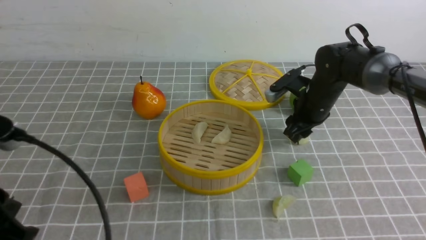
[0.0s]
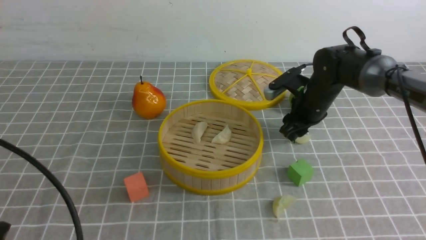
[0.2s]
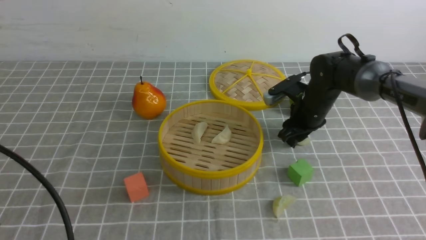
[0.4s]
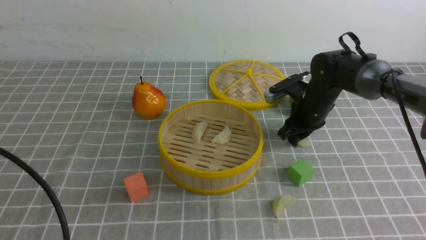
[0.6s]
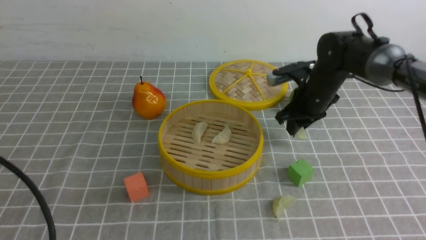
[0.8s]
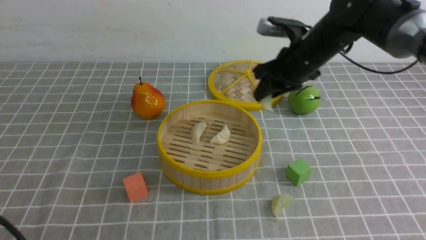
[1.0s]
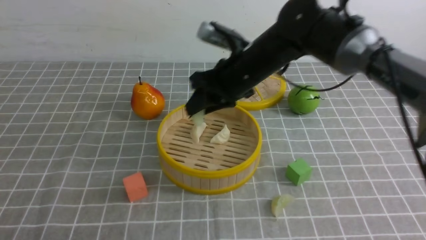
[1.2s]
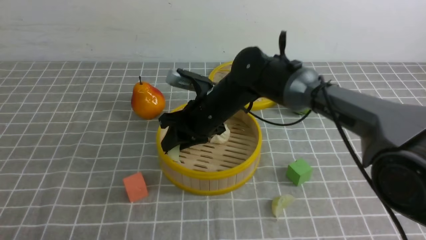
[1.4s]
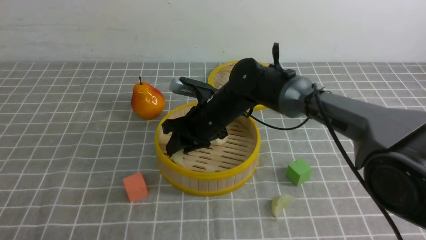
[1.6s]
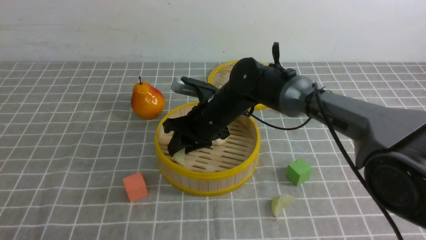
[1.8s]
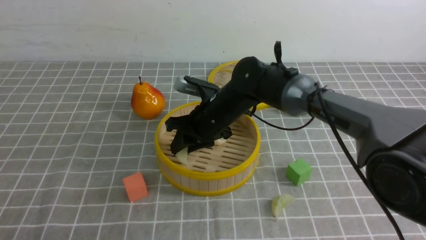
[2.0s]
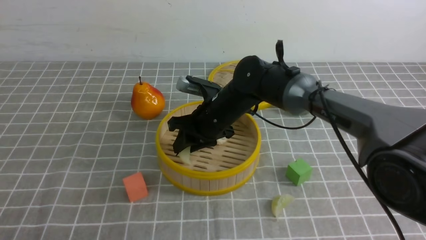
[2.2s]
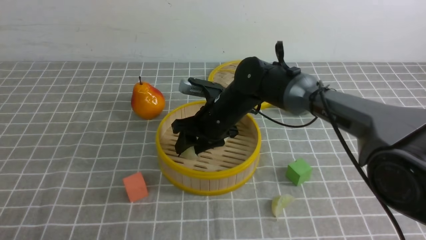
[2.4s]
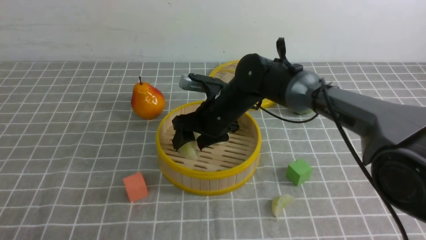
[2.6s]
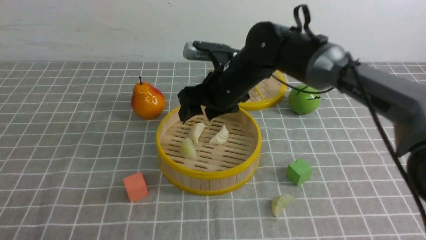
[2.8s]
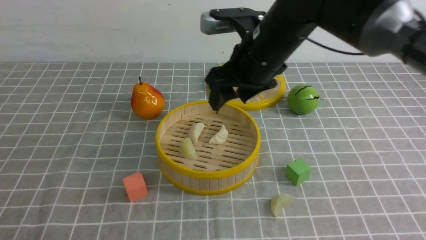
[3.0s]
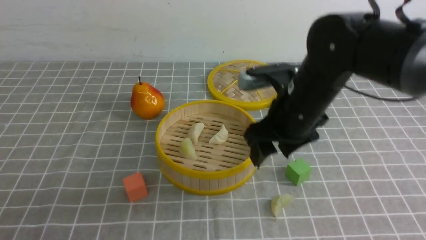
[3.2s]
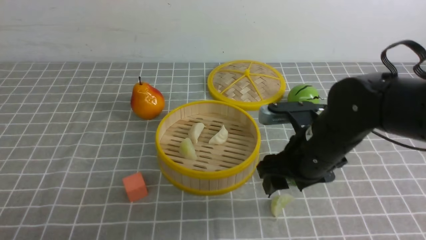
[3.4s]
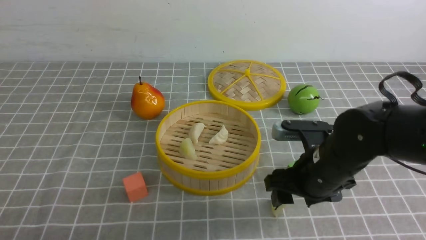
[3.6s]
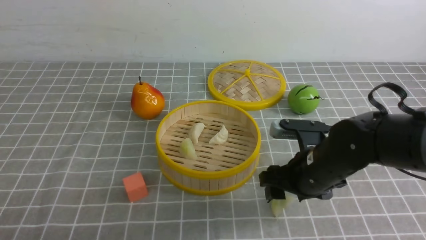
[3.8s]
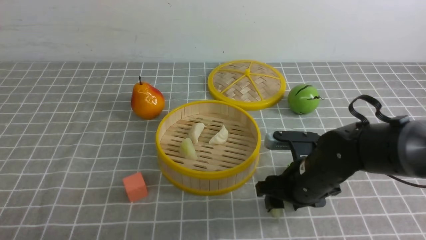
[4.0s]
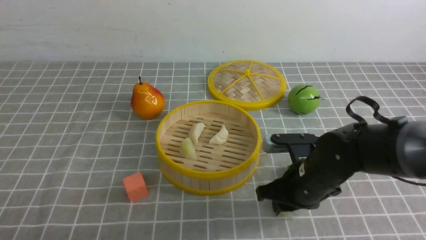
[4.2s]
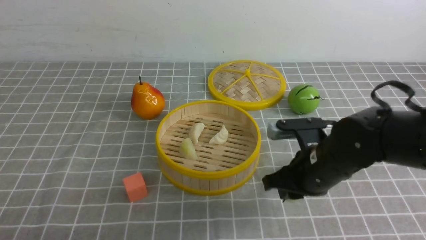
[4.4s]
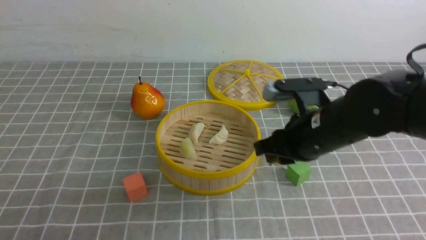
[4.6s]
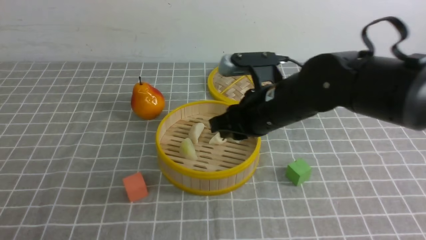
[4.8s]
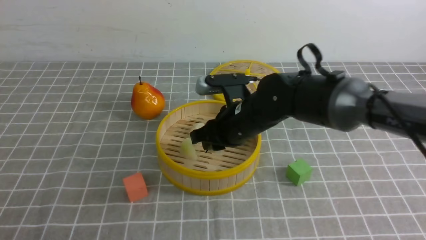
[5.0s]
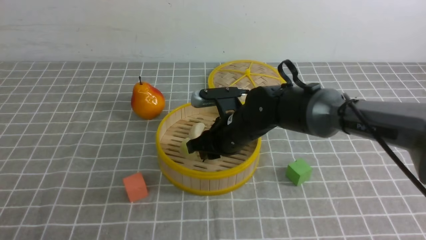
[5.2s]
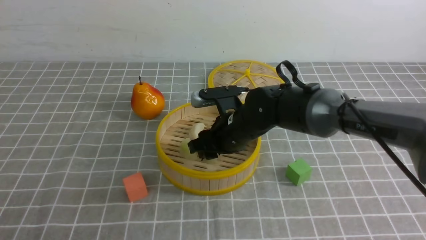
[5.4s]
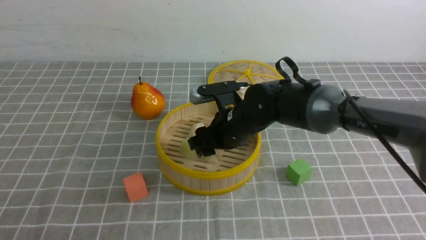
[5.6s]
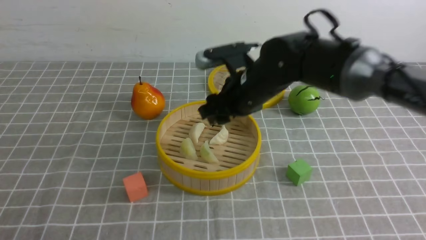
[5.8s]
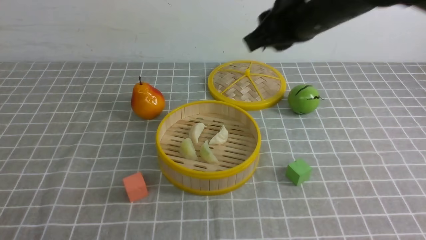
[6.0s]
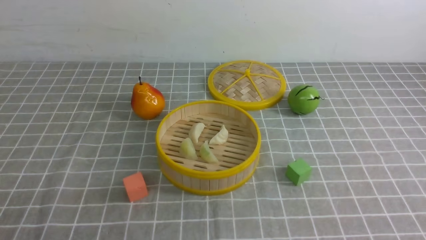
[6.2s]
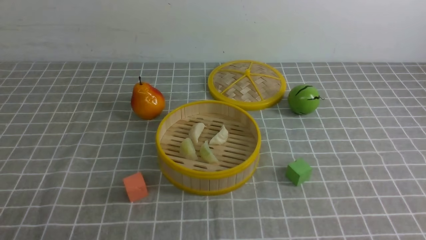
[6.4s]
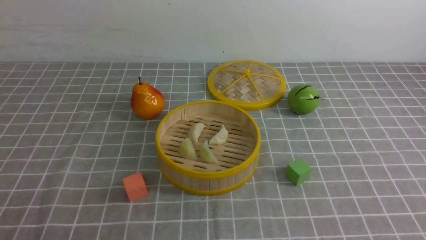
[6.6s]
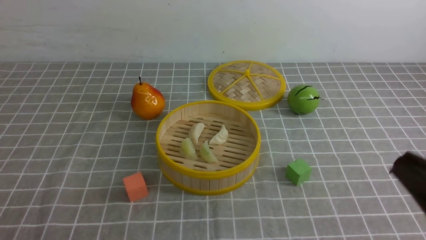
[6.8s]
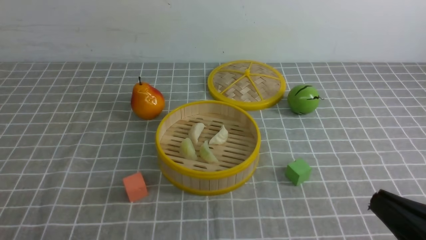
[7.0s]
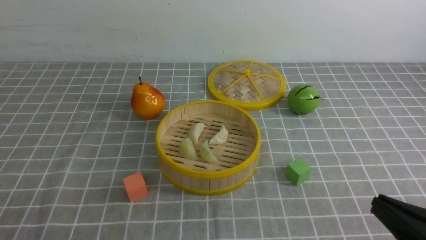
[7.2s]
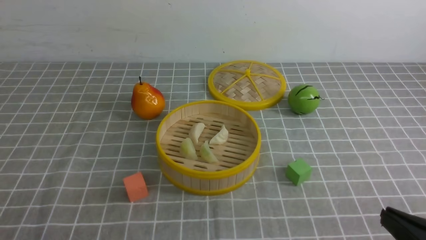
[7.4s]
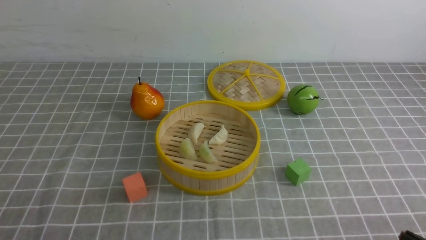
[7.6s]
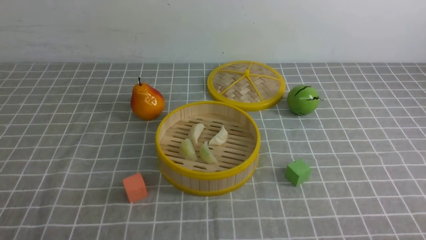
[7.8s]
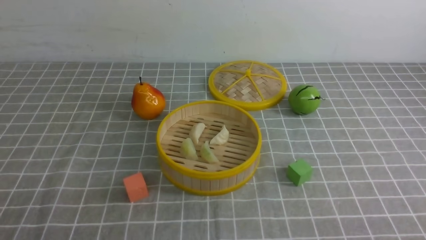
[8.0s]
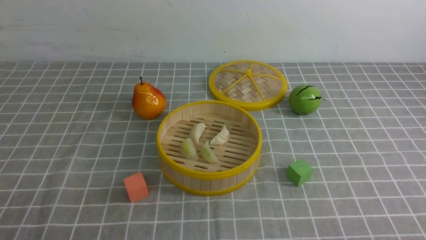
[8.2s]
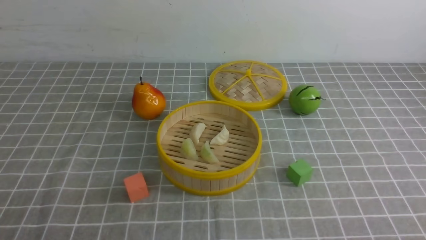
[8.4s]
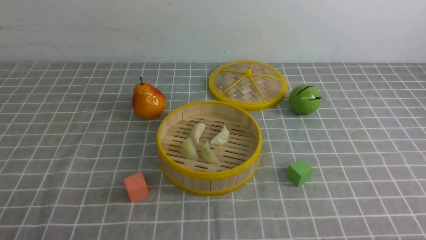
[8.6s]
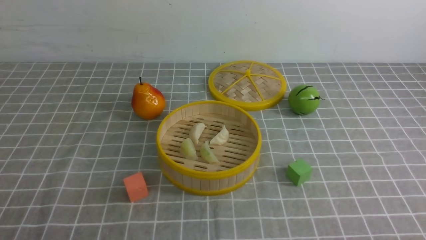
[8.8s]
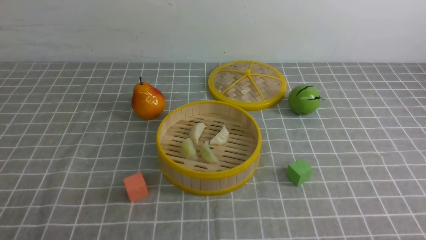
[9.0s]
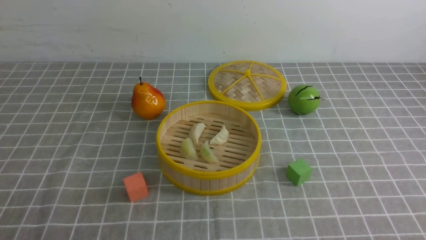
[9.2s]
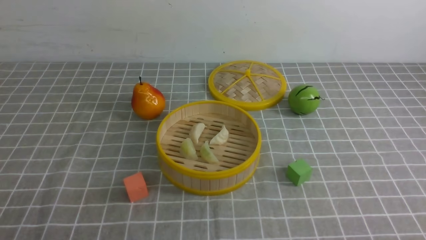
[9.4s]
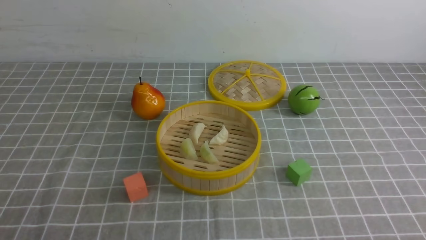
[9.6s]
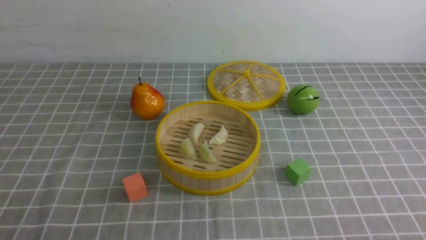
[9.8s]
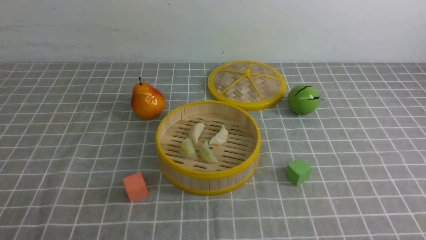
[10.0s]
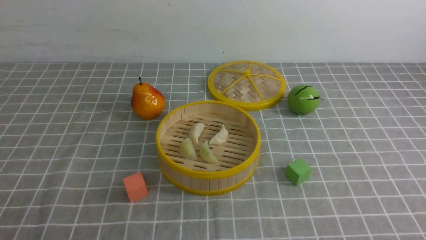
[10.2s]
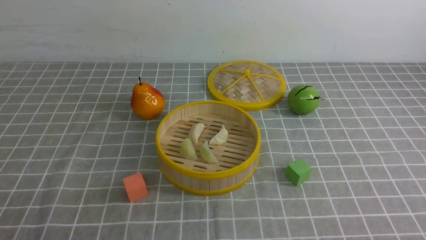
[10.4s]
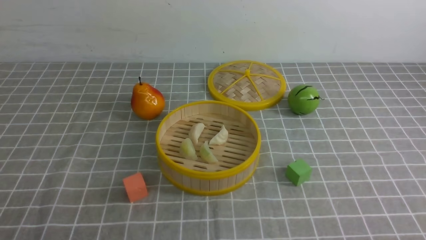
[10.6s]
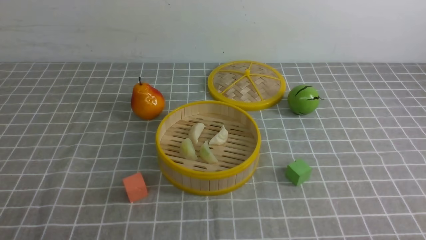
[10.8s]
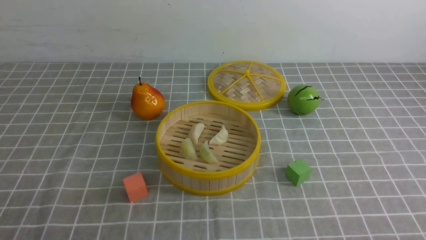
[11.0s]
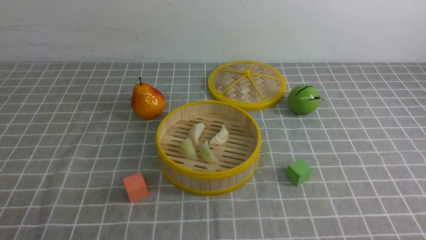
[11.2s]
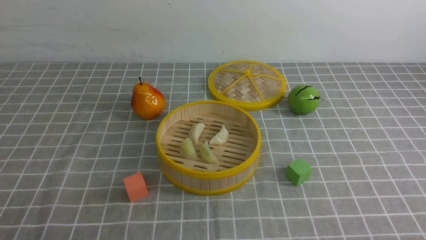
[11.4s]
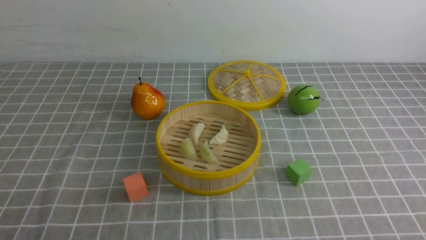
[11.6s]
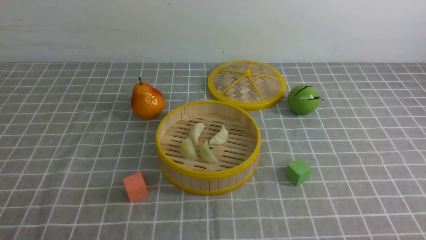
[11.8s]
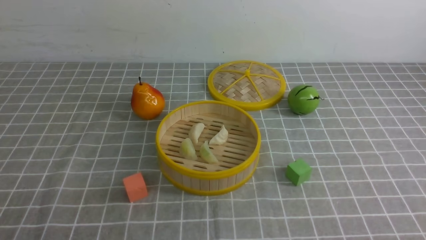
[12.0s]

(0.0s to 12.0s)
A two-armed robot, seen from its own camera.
Task of the whole recording: put the dumplings into the steamer on the table with the grey tablecloth.
Step, 1.0s - 2.8s: use the right arm to put the dumpling into the steamer.
Step, 3.0s - 4.4s: use the right arm to grab a dumpling.
Step, 4.6s - 5.6s: use the right arm to put the dumpling into the steamer.
0.0s - 1.6s: The left gripper moves backward, downward and to the left, about 10 cm; the right gripper is displaced to the left by about 20 cm.
1.6s - 3.0s: The right gripper is displaced upward and to the right by about 10 cm, and opens.
3.0s - 4.4s: The right gripper goes roughly 15 cm downward, backward and to the right, and closes up.
4.4s - 6.0s: The right gripper moves up and down over approximately 25 cm, changing direction 2 times, and opens, then closes once more.
6.0s - 7.6s: The right gripper moves backward, downward and to the right, some 35 cm.
10.4s - 12.0s: Neither gripper changes place.

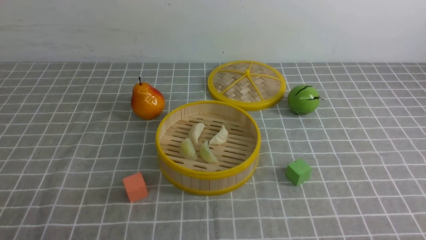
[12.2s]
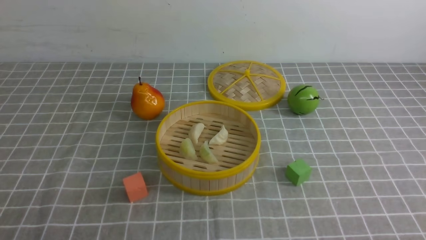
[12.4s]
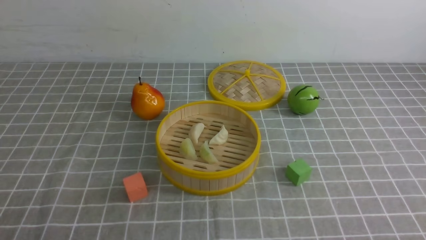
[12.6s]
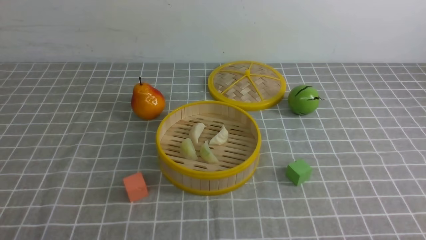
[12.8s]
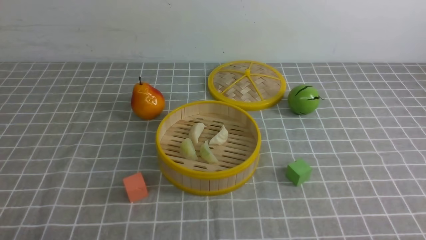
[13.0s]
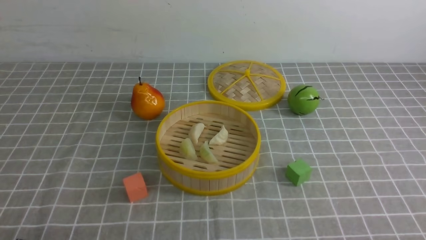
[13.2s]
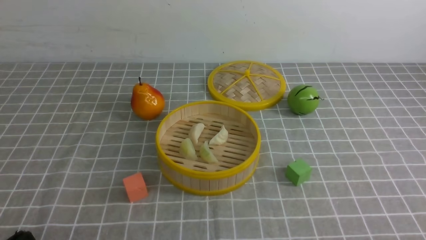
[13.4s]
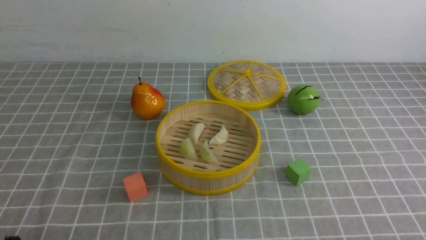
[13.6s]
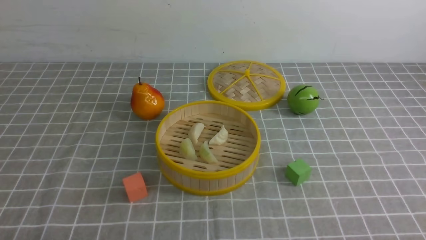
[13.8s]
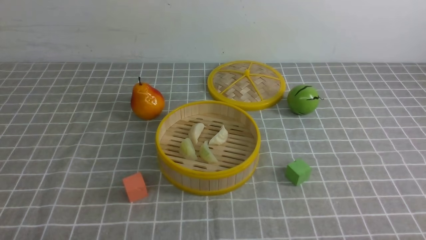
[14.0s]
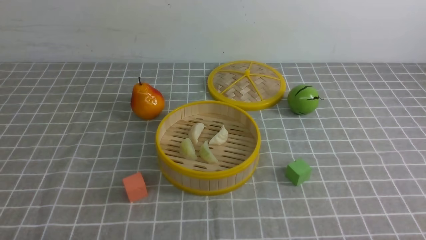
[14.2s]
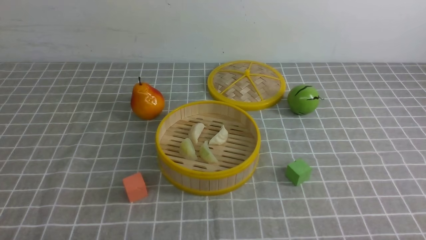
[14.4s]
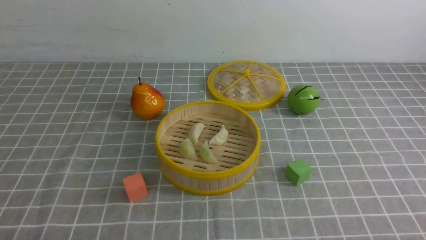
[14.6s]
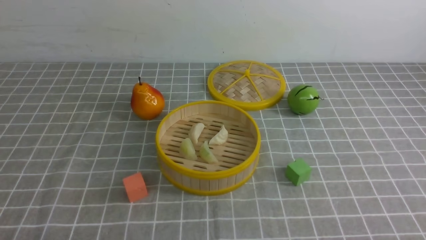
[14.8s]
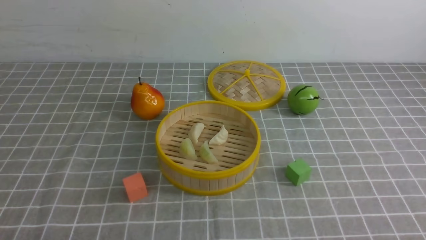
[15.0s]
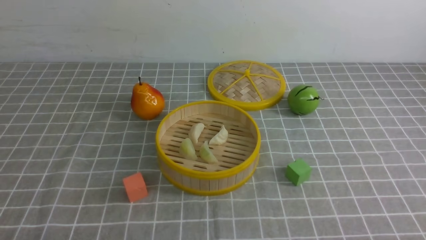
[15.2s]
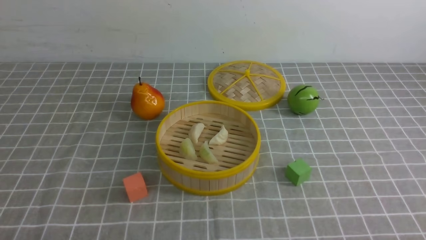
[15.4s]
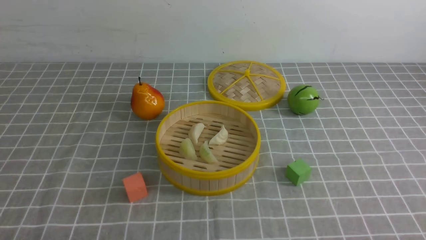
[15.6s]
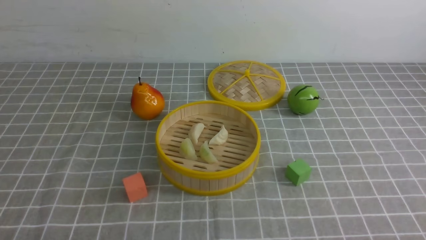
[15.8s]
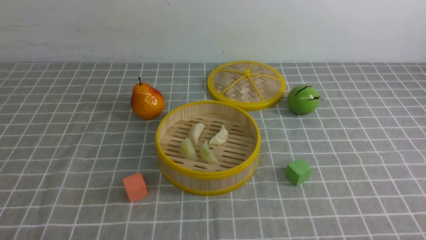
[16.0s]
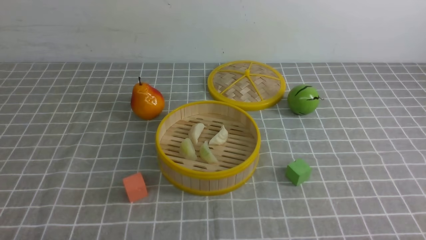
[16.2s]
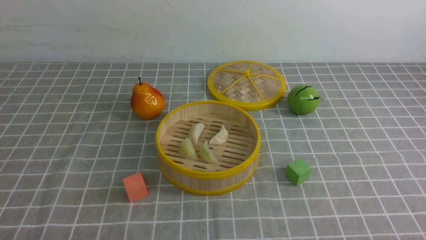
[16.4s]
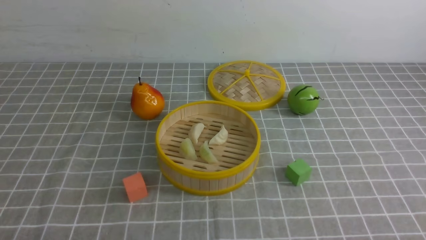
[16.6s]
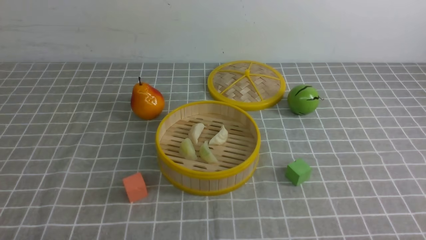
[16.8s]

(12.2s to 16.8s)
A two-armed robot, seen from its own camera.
Task of the whole recording: put the dumplings into the steamer on the table with the grey tablecloth.
15.2s - 16.8s: Neither gripper changes place.
